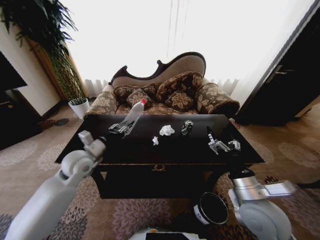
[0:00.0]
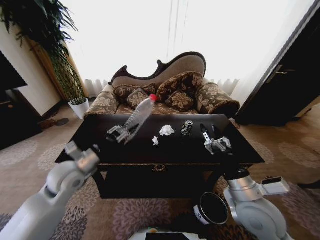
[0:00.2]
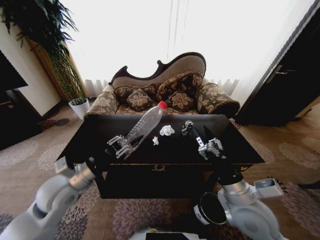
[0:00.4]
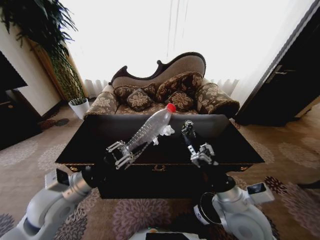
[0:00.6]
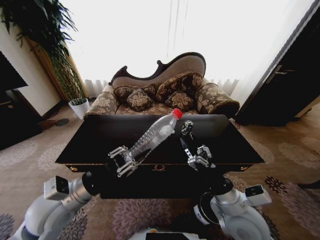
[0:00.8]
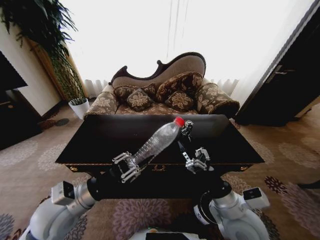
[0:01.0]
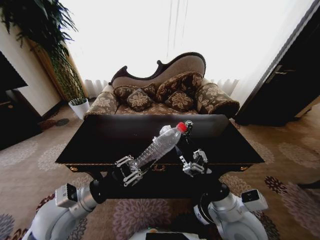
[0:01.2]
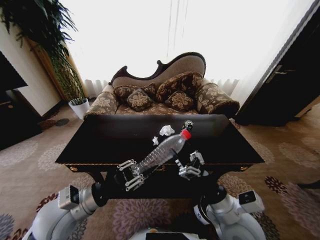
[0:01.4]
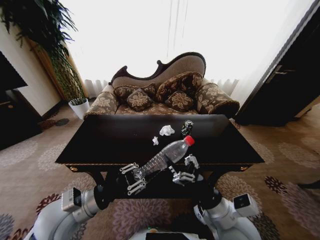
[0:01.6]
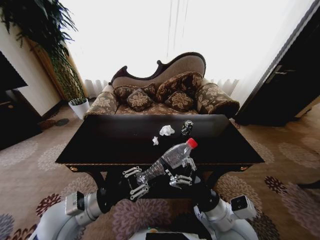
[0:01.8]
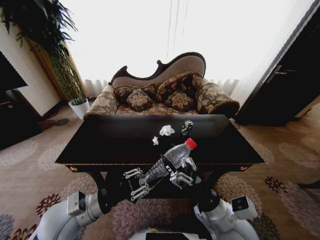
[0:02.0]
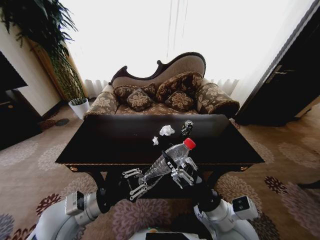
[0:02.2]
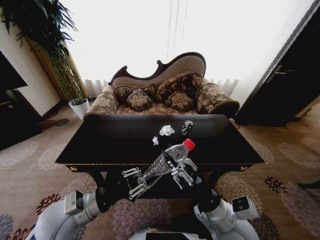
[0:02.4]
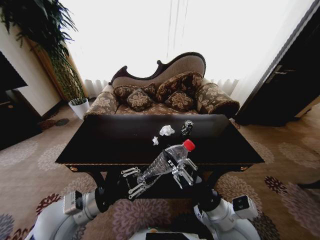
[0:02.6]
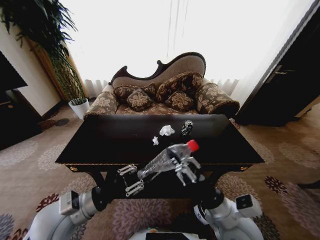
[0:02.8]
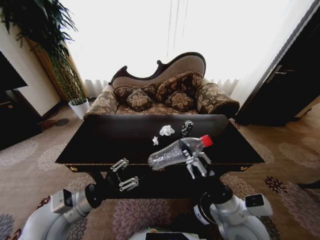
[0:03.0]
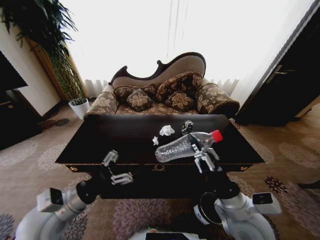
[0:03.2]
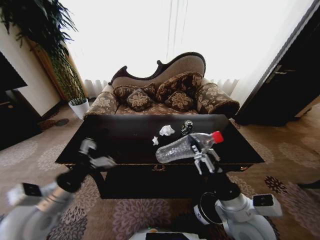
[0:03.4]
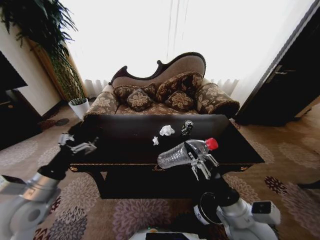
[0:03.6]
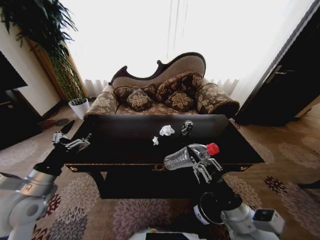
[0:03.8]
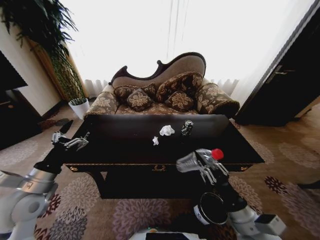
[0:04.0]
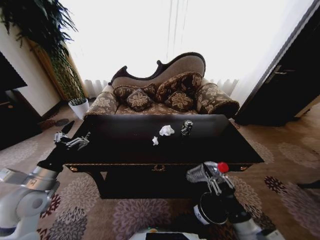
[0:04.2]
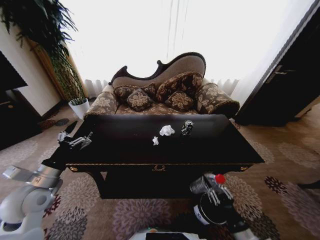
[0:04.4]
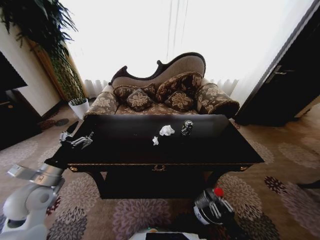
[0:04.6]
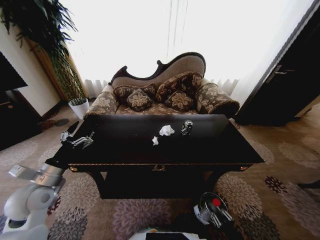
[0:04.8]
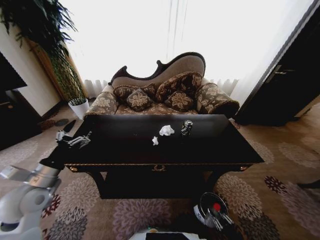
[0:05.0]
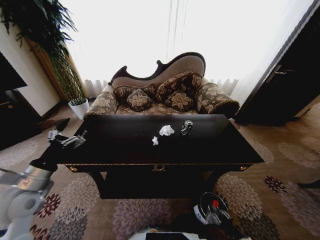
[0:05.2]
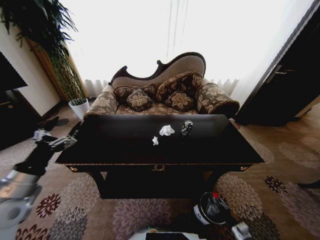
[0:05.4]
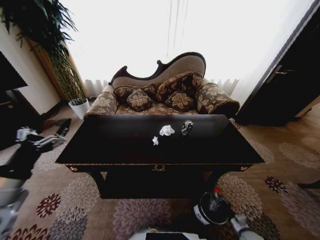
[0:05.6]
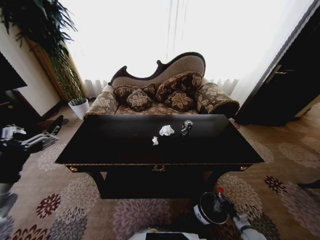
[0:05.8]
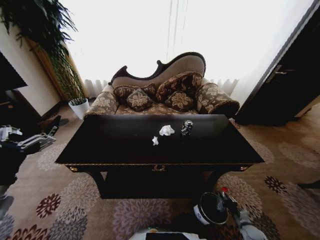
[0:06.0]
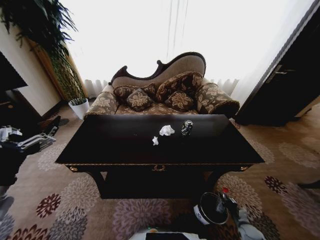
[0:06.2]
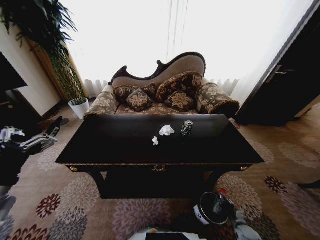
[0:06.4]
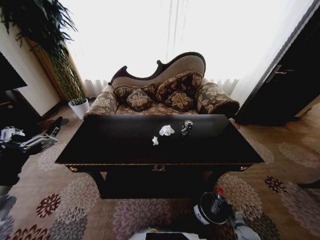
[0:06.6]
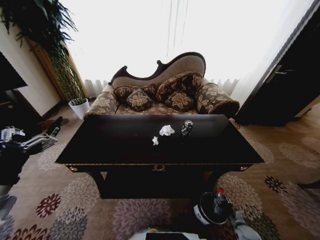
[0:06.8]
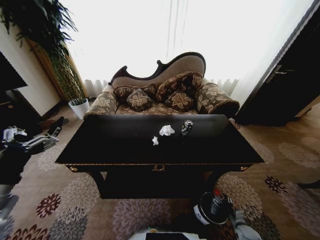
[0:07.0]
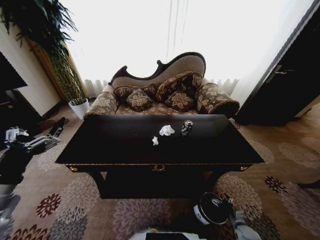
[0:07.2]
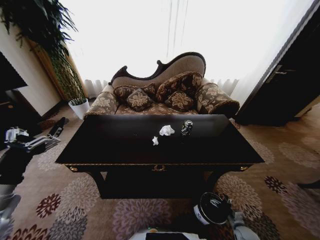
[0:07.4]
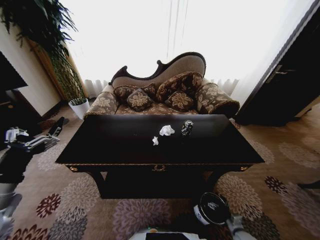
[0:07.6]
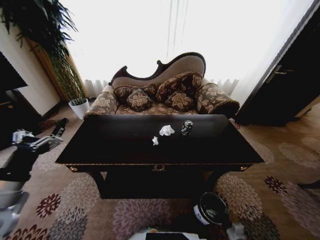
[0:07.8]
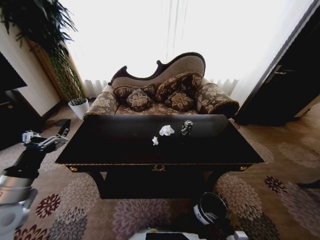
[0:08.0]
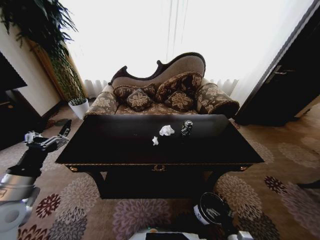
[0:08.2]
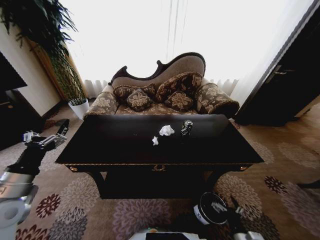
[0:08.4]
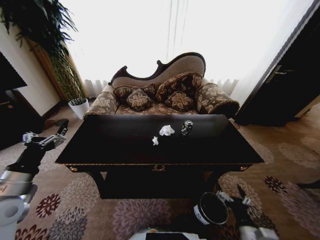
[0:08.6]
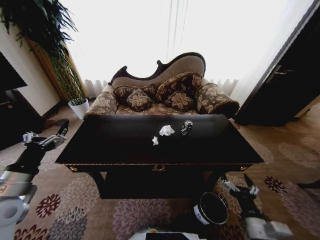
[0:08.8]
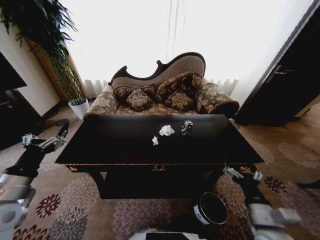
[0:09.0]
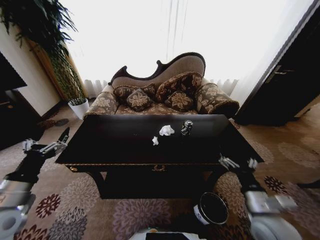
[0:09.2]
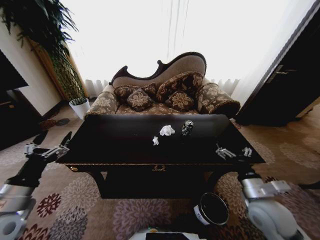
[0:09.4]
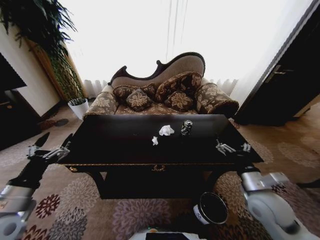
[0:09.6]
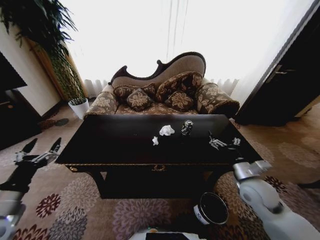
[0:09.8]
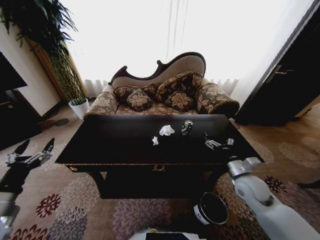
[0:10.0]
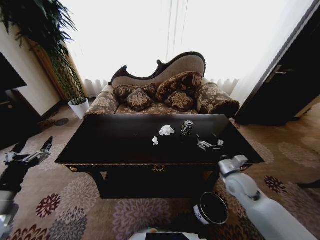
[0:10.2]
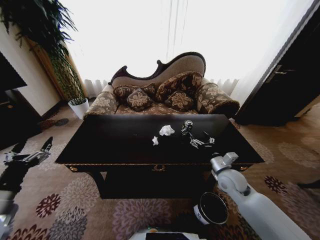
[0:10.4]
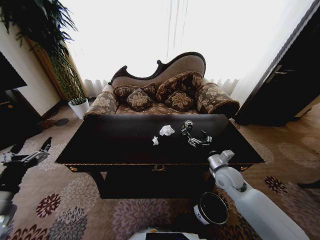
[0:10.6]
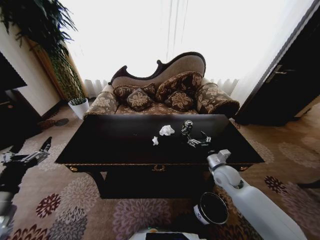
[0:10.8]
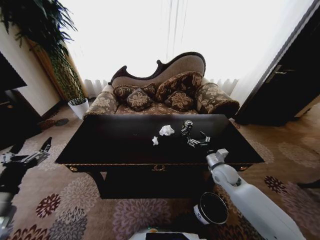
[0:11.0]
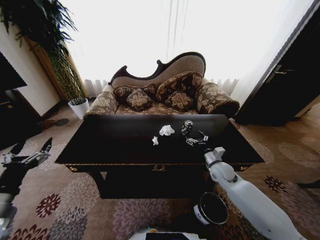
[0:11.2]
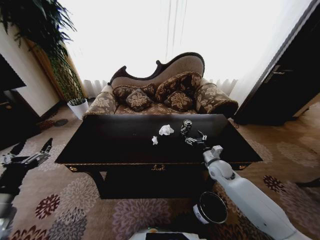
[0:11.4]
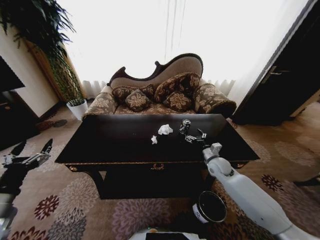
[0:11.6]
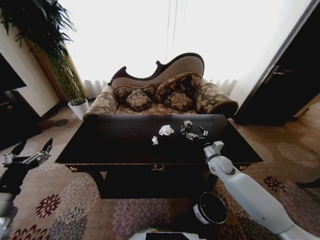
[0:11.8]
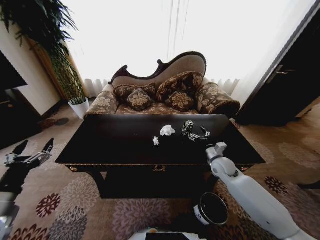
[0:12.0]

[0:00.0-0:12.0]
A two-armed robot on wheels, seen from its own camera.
Task of the whole recording: Move to the front of the table and place the trash on the table into the trash bin.
0:00.0 to 0:01.6: The right gripper shifts approximately 5 cm to the left; the left gripper travels backward by some 15 cm.
0:01.6 to 0:03.0: The right gripper closes its fingers.
0:03.0 to 0:04.4: The left gripper goes approximately 10 cm to the left, and opens its fingers. Meanwhile the right gripper travels downward, backward and to the right by some 15 cm.
0:04.4 to 0:06.0: The right gripper goes some 30 cm downward and to the right. The left gripper moves backward and upward, some 10 cm.
0:06.0 to 0:07.6: The right gripper is displaced to the left by about 5 cm, and opens up.
0:07.6 to 0:09.0: The right gripper moves upward, some 30 cm.
0:09.0 to 0:10.4: The right gripper is displaced forward by about 20 cm. The left gripper changes place by approximately 5 cm.
0:10.4 to 0:12.0: The right gripper heads forward, covering some 5 cm.

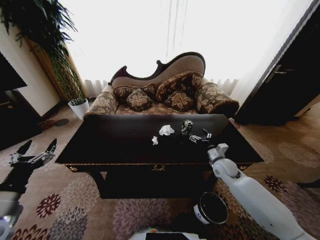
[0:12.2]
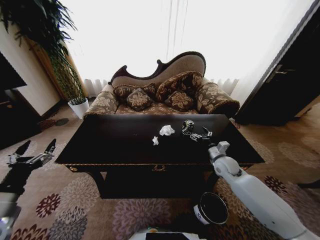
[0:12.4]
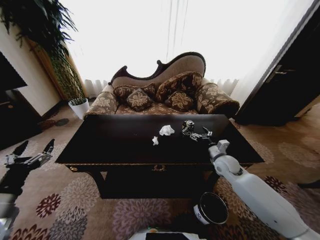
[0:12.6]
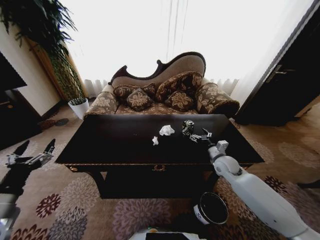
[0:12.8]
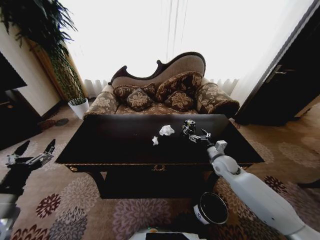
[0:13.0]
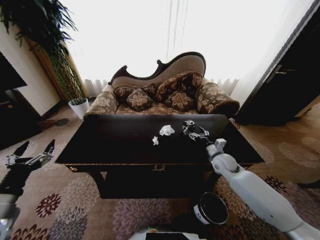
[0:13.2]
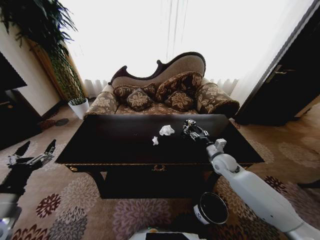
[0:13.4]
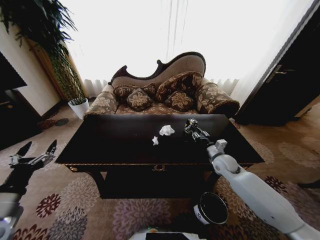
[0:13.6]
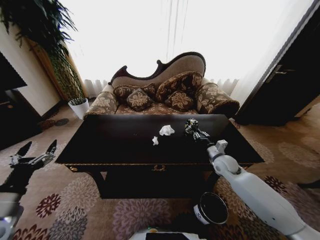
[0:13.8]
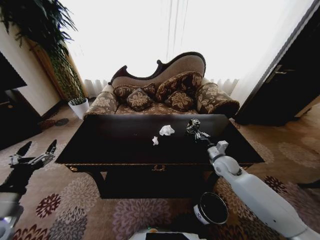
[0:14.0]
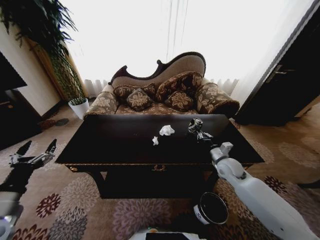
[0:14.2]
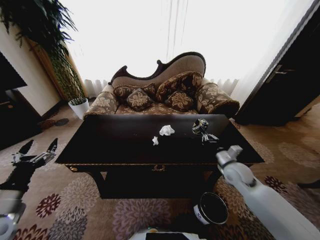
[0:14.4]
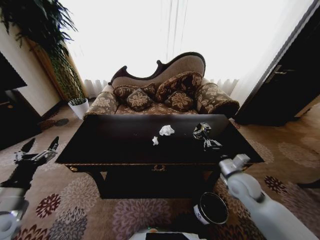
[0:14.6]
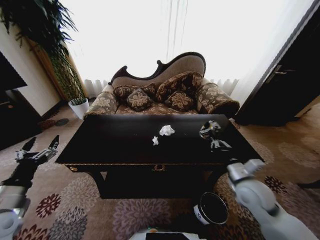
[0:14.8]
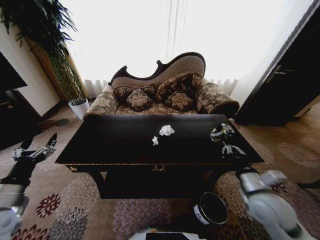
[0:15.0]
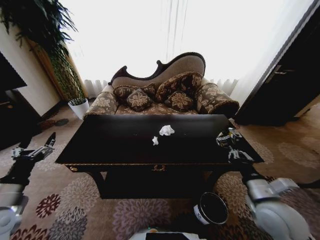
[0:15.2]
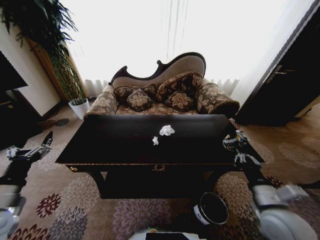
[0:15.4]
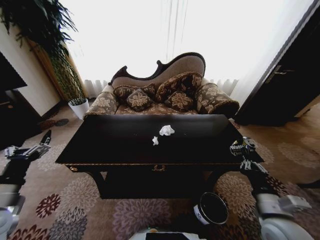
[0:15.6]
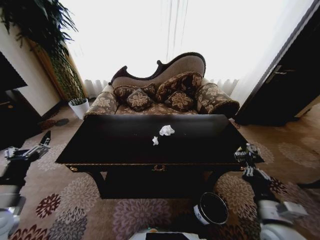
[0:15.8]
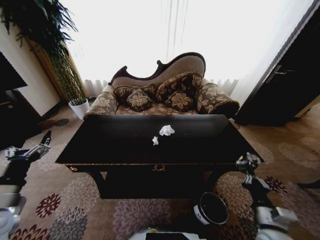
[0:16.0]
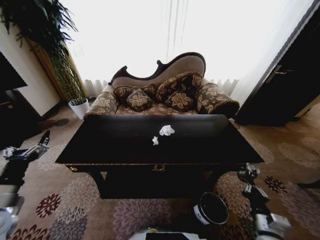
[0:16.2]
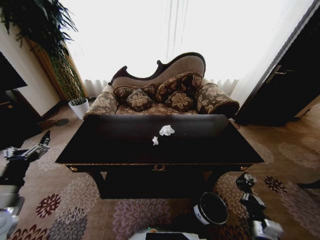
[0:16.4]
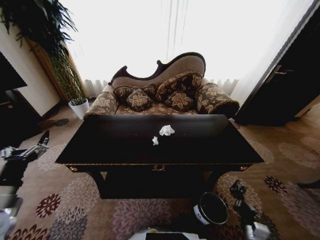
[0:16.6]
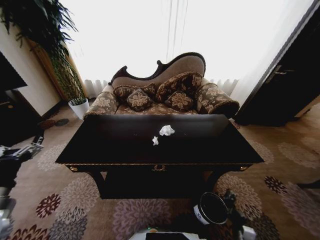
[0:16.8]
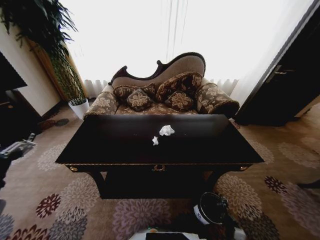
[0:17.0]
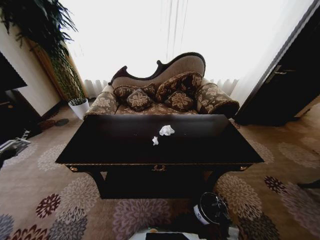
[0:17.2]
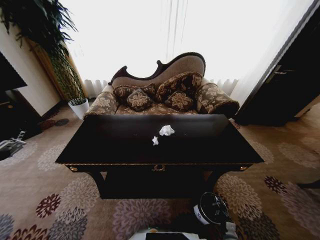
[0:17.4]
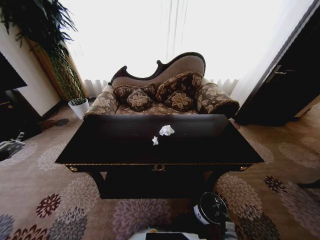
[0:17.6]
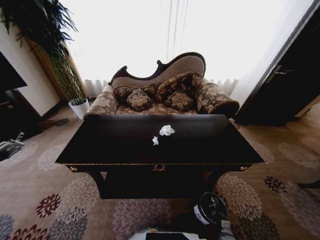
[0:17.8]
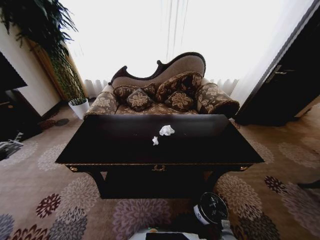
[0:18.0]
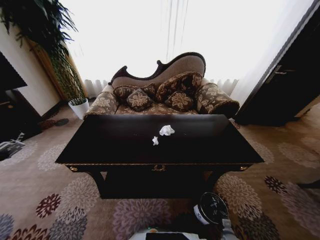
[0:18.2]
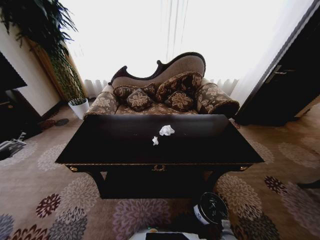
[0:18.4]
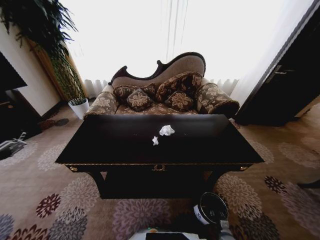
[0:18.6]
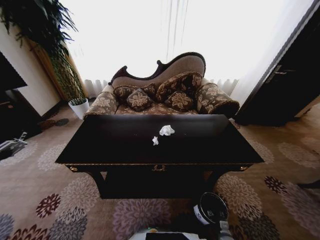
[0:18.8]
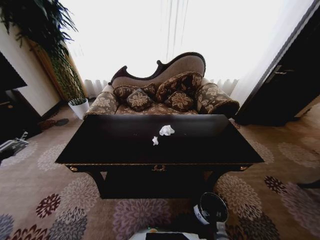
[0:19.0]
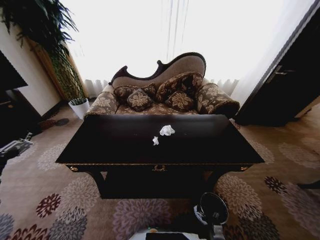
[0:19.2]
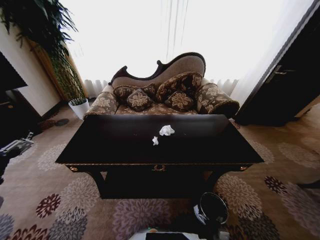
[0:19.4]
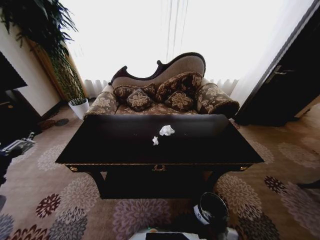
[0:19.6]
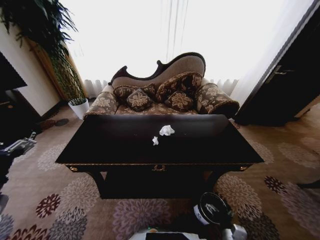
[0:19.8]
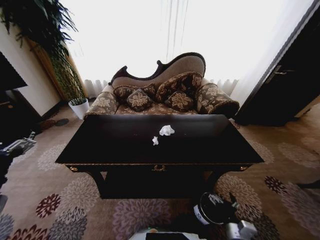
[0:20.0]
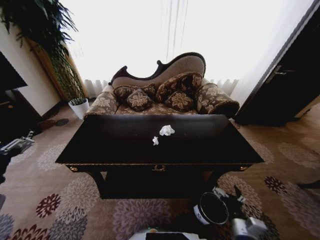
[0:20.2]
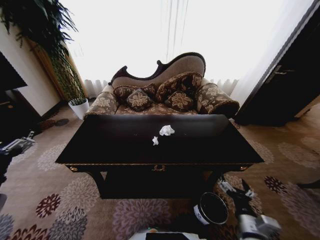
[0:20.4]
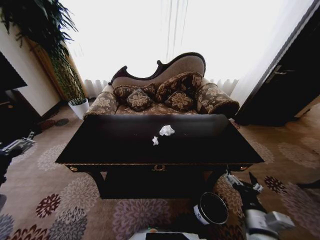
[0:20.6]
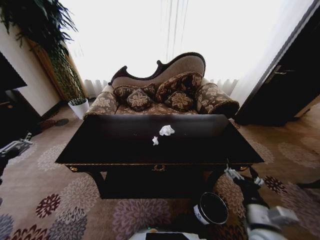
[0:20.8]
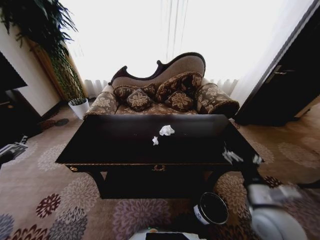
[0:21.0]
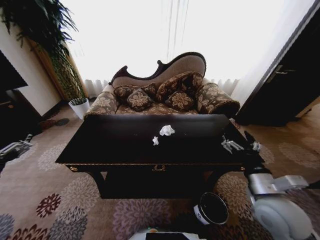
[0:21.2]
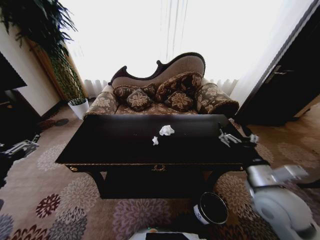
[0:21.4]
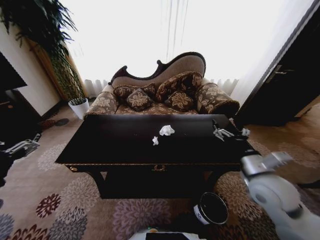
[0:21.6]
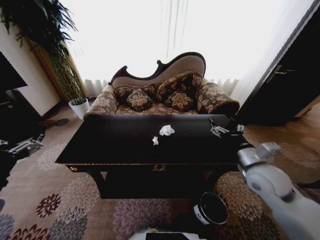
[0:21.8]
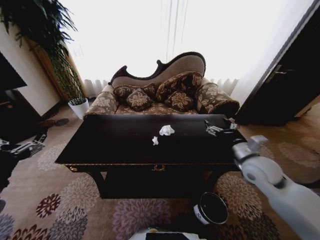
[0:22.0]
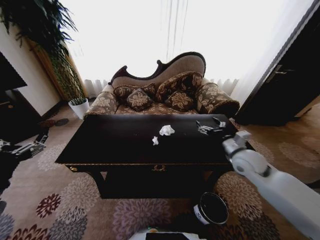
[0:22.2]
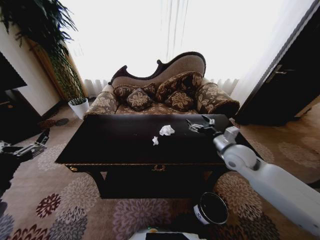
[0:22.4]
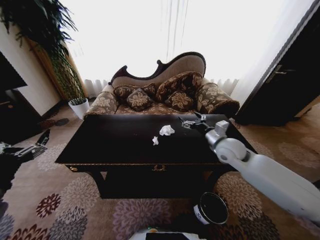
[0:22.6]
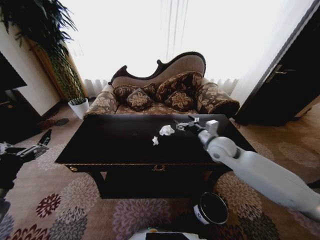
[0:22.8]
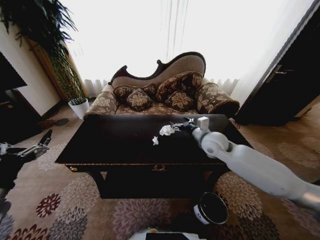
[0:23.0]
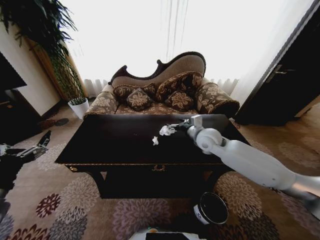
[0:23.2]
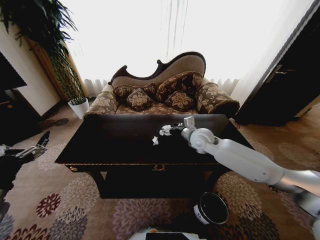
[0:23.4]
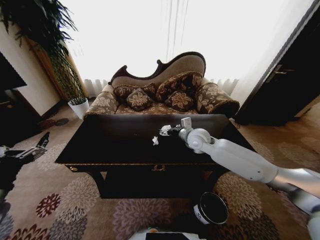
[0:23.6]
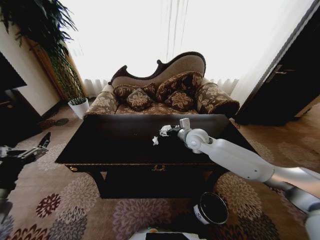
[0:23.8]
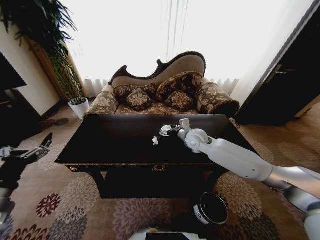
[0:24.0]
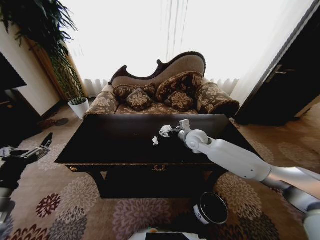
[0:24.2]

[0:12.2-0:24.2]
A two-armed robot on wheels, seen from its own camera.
Task of the whole recording: Move to the front of the table and place the trash on the table into the trash bin.
0:12.2 to 0:13.8: The right gripper closes.
0:13.8 to 0:15.2: The right gripper is displaced backward by some 20 cm.
0:15.2 to 0:16.6: The right gripper travels downward and backward by about 25 cm.
0:16.6 to 0:18.2: The right gripper shifts some 20 cm downward. The left gripper goes some 5 cm upward.
0:19.8 to 0:21.2: The right gripper shifts approximately 25 cm upward.
0:21.2 to 0:22.6: The right gripper travels forward by roughly 20 cm.
0:22.6 to 0:24.2: The right gripper is displaced to the left and forward by roughly 15 cm.
